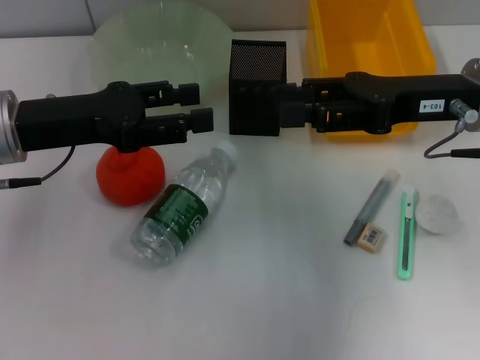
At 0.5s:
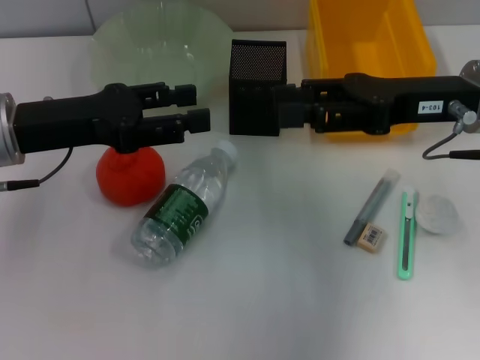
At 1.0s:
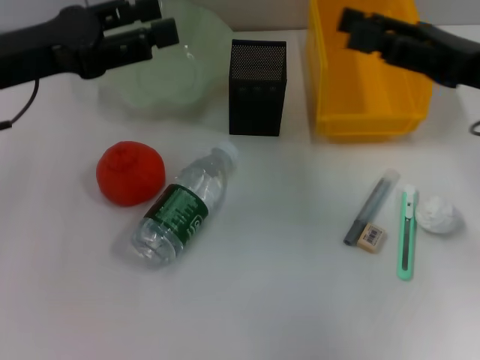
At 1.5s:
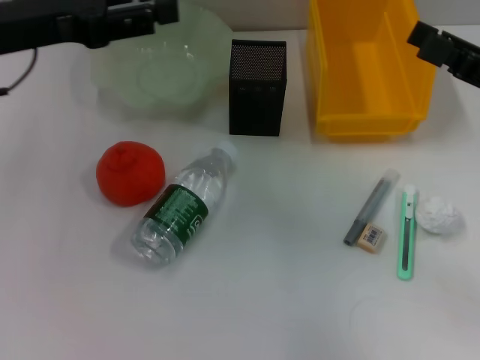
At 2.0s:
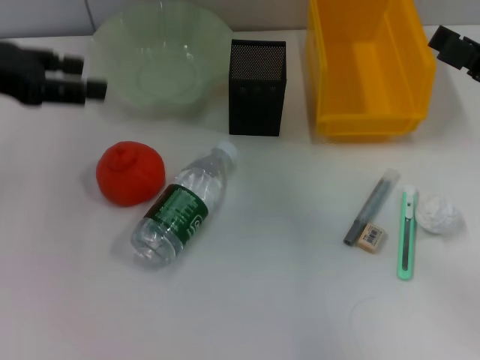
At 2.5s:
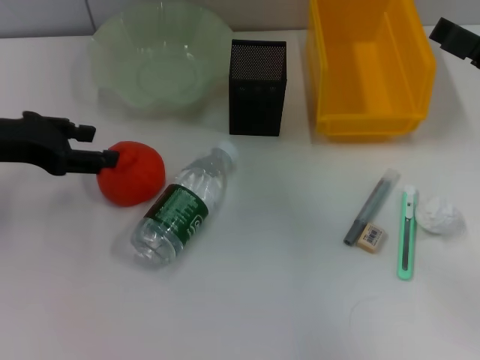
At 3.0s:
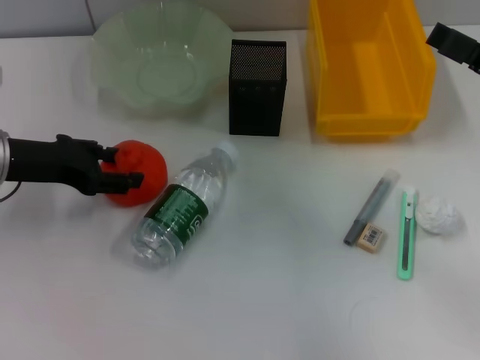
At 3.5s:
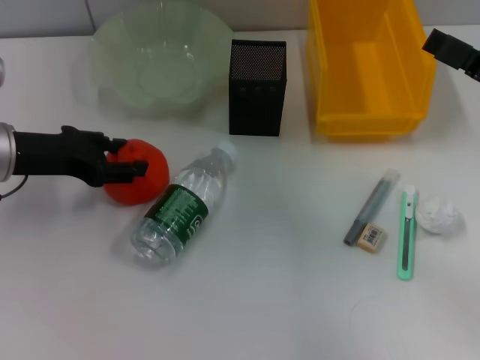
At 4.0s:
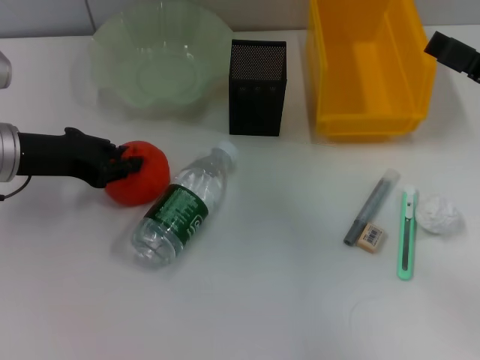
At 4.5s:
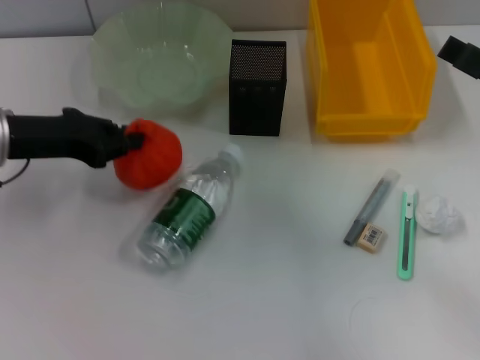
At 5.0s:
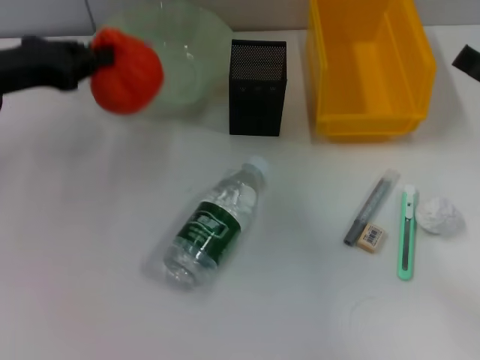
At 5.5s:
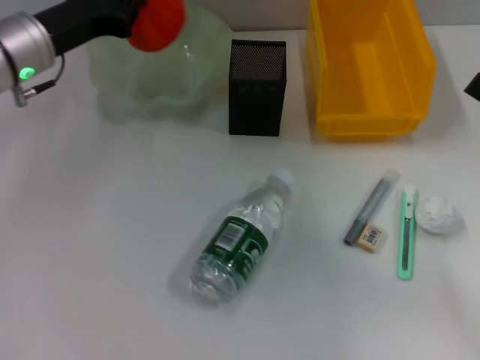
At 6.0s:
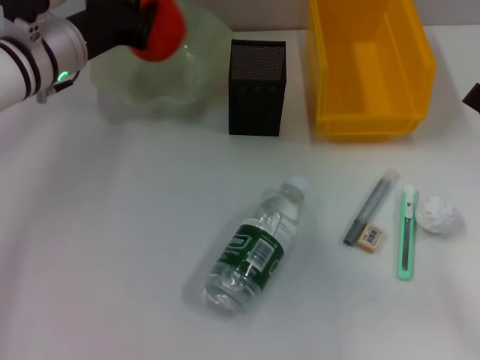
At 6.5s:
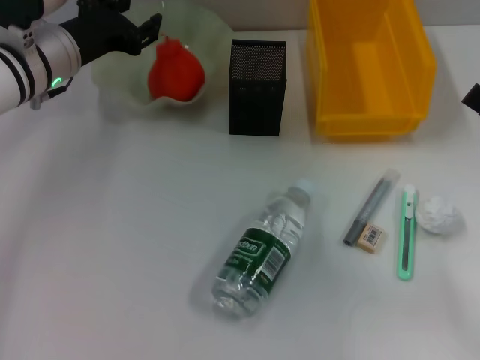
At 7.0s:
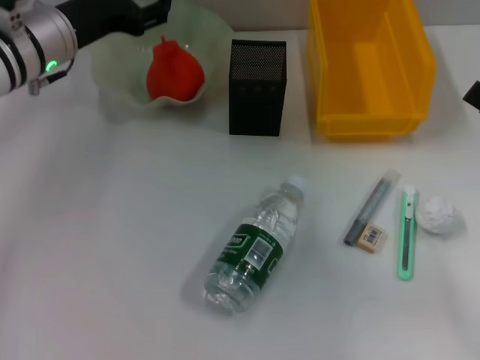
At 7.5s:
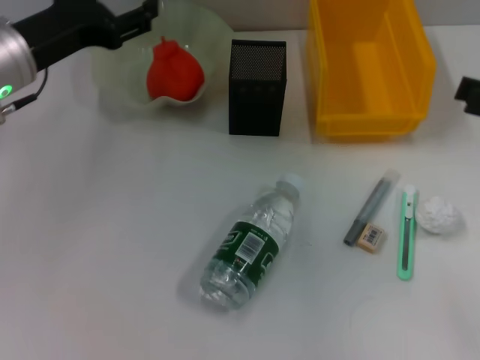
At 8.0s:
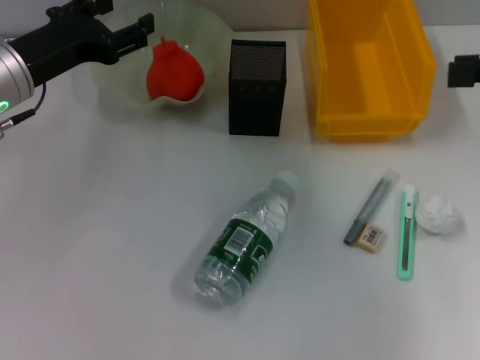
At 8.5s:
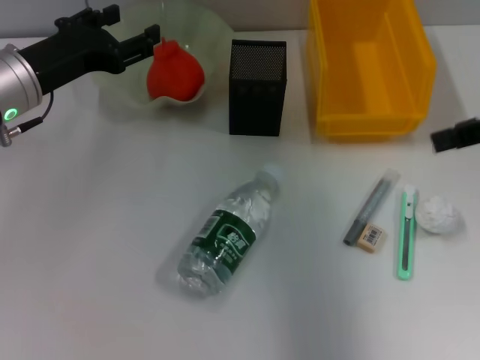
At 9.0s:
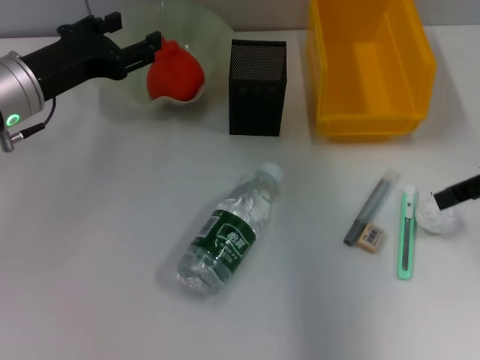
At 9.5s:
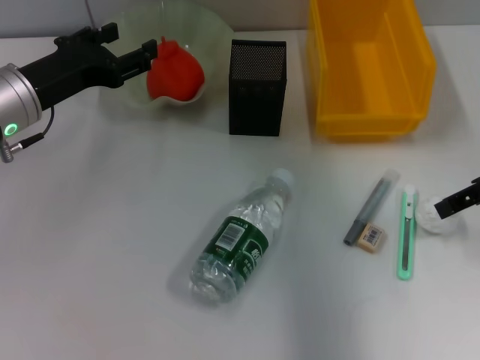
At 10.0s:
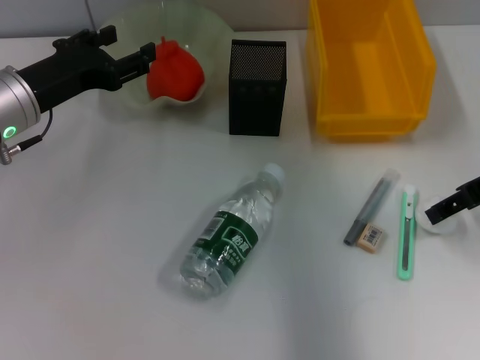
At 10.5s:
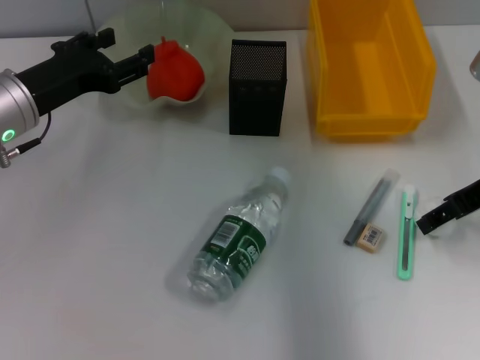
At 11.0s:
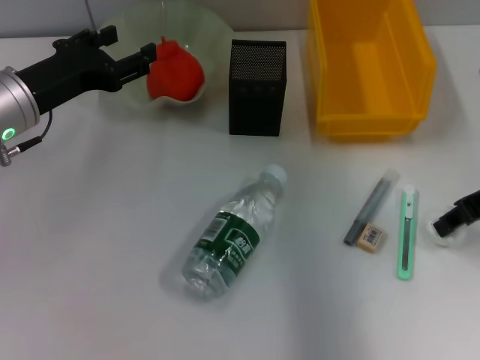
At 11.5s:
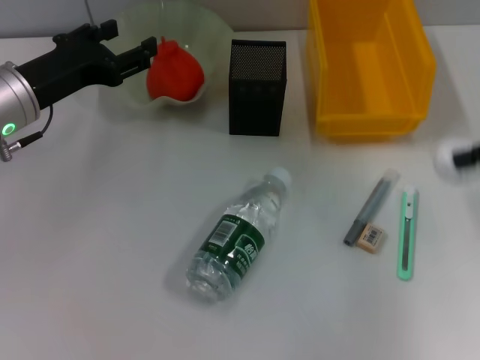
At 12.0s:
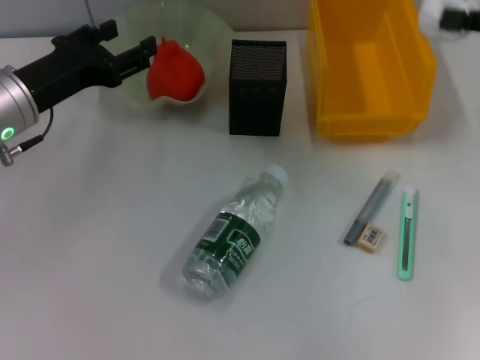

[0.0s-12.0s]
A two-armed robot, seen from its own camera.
Step, 0.0s to 3.5s: Grab the orange with the left hand.
Step, 4.0s to 6.5s: Place the orange into the fruit bowl with the left hand.
Step, 7.0s to 10.5s: Grab the paper ball with the right hand.
0.0s to 2.0s: The left gripper is displaced upward and to the left by about 10 cm, while the right gripper moves to the right and backward, some 10 cm.
2.0s to 4.0s: The left gripper is displaced downward by roughly 10 cm, and closes its fingers.
4.0s to 6.0s: The left gripper moves forward and to the right, some 10 cm, and closes; the right gripper moves backward, roughly 5 cm.
6.0s to 8.0s: The right gripper goes some 15 cm upward and forward. Meanwhile the left gripper travels backward by about 5 cm, and opens its fingers.
8.0s to 10.0s: The right gripper heads downward, covering roughly 10 cm.
10.0s to 12.0s: The right gripper travels to the right by some 5 cm, and closes its fingers.

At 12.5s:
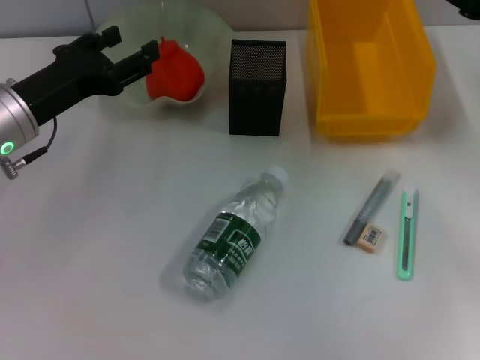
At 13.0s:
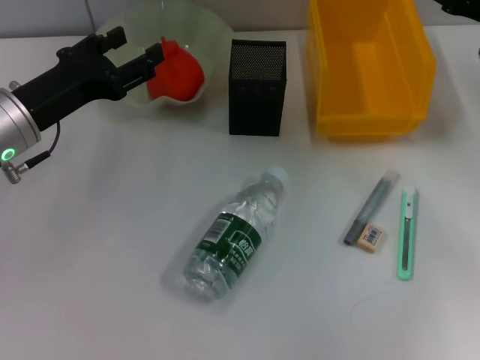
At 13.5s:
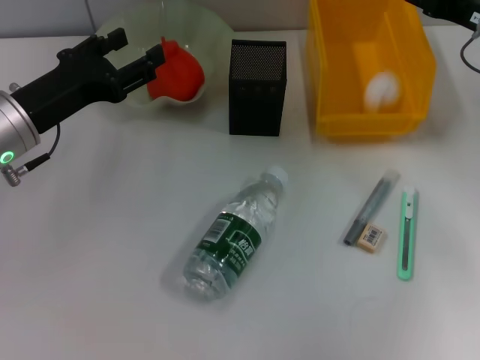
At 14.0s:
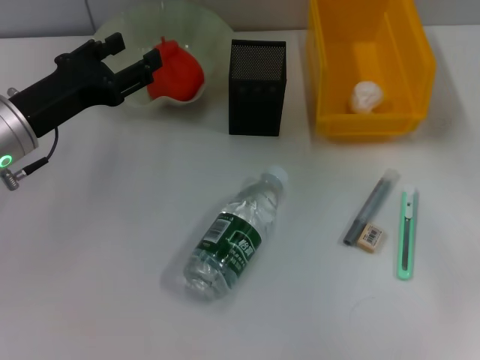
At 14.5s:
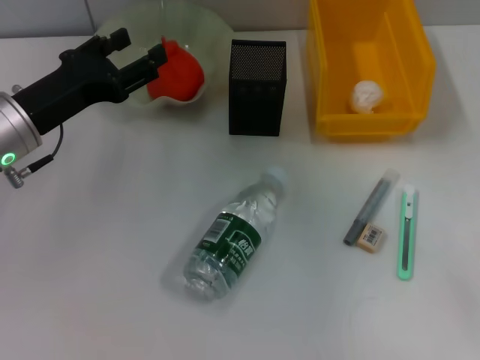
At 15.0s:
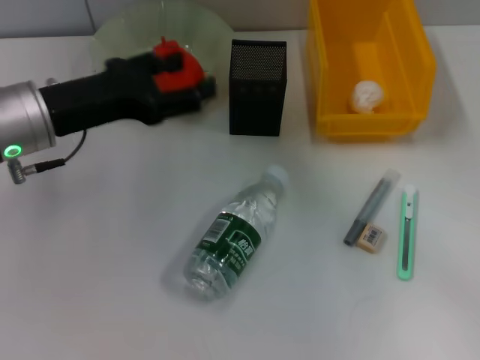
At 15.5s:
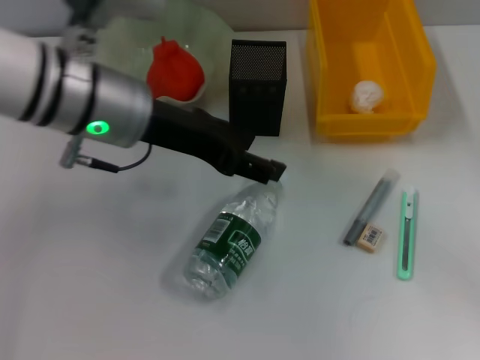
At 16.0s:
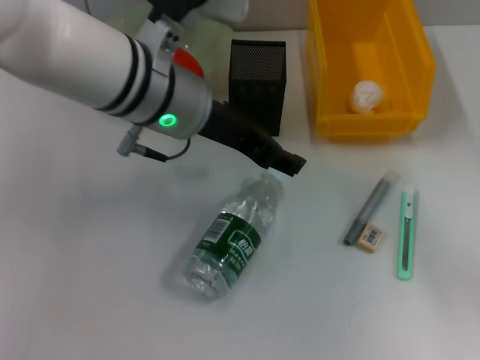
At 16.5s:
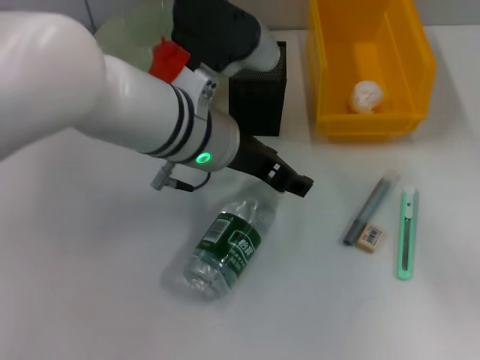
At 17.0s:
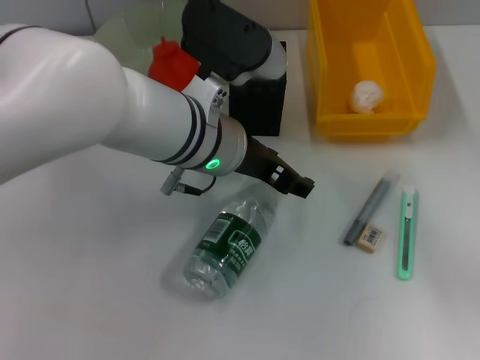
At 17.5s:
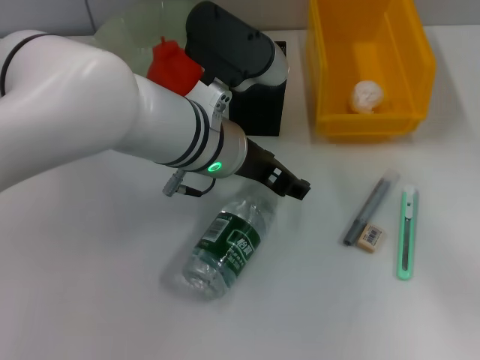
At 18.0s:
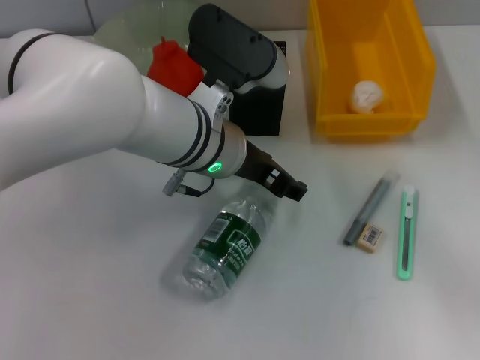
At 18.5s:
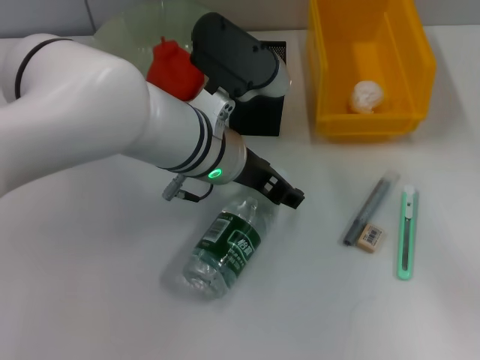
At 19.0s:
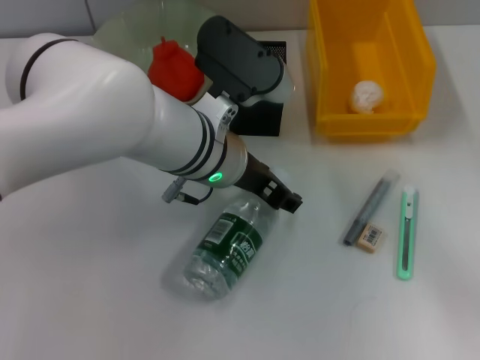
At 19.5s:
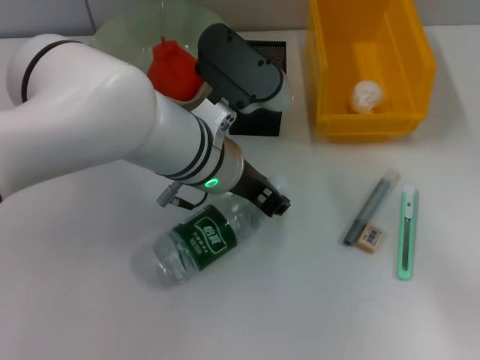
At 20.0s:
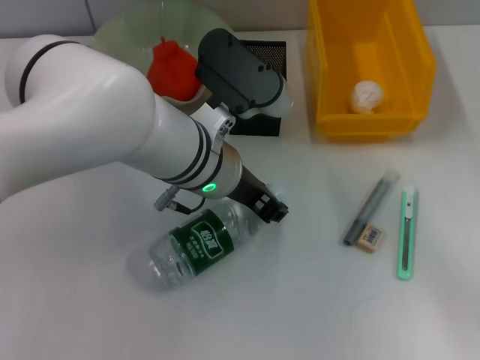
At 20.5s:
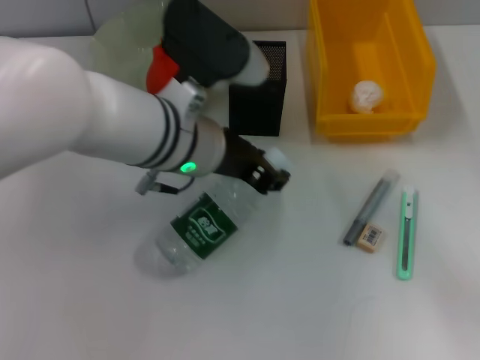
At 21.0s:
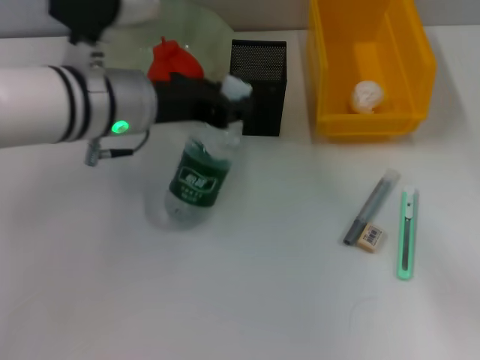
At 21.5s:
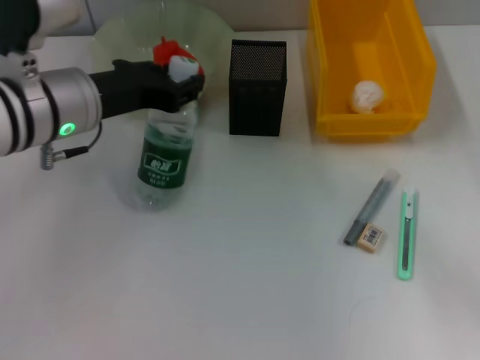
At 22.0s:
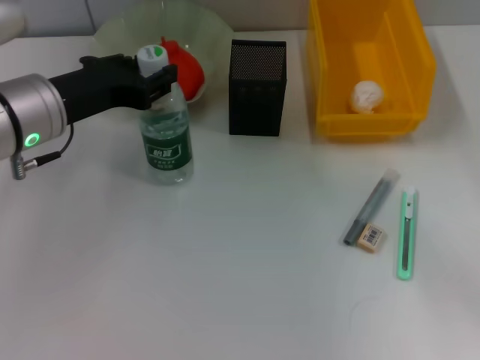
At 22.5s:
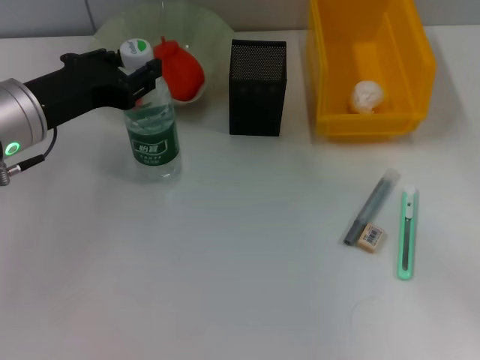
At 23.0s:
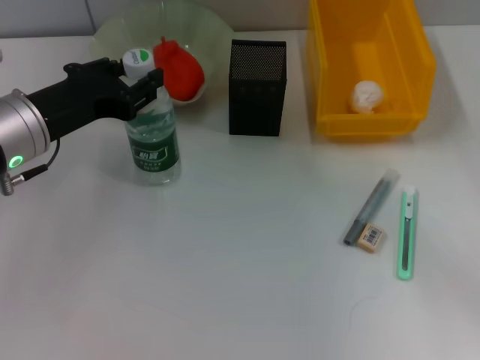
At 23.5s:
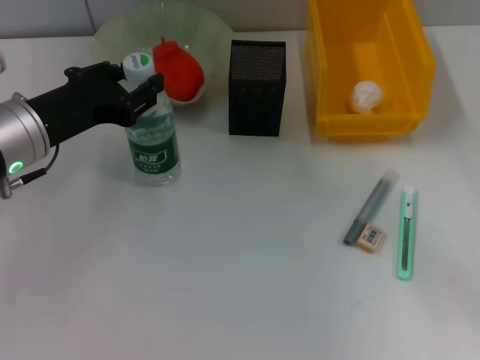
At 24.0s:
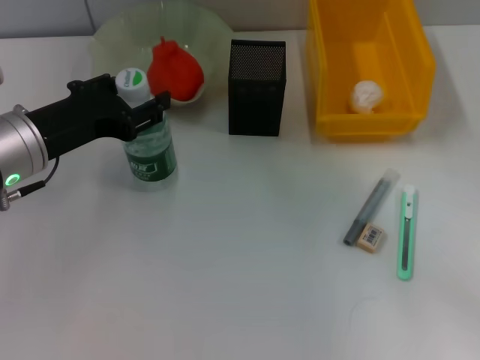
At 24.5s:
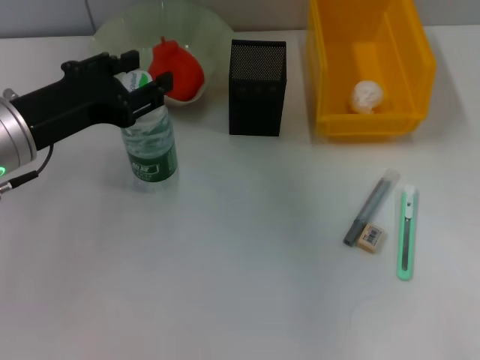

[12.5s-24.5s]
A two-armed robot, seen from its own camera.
Step, 14.0s to 19.5s: Grab the water bottle with the left hand.
Step, 20.0s to 24.0s: Place the water bottle on the table with the left hand.
12.5s to 14.5s: The right gripper heads backward and upward, covering roughly 10 cm, and opens.
14.5s to 16.5s: The left gripper heads to the right, covering roughly 20 cm. The right gripper travels downward, backward and to the right by roughly 15 cm.
16.5s to 18.5s: The grippers make only small movements.
18.5s to 20.5s: The left gripper closes up.
20.5s to 22.5s: The left gripper shifts about 15 cm to the left.
22.5s to 24.5s: The right gripper is displaced upward by some 10 cm.

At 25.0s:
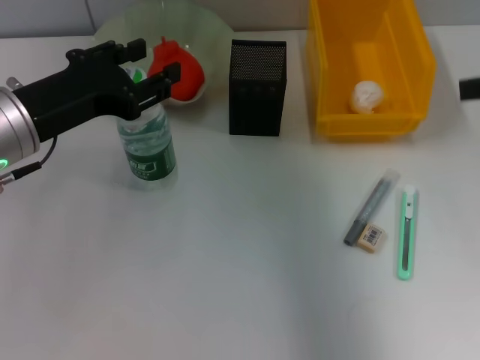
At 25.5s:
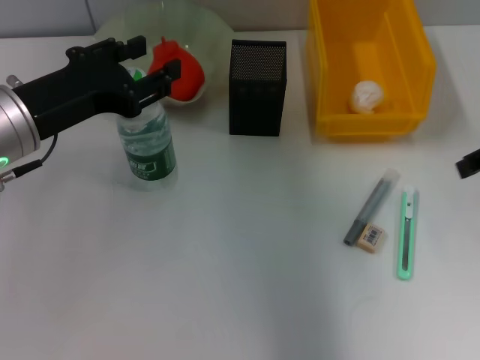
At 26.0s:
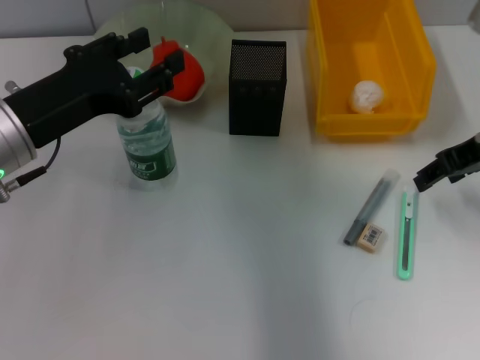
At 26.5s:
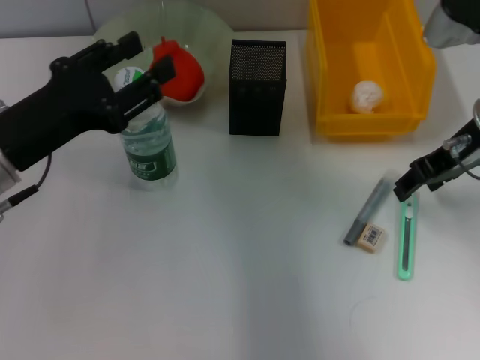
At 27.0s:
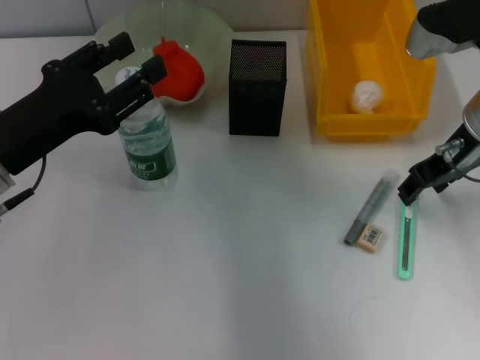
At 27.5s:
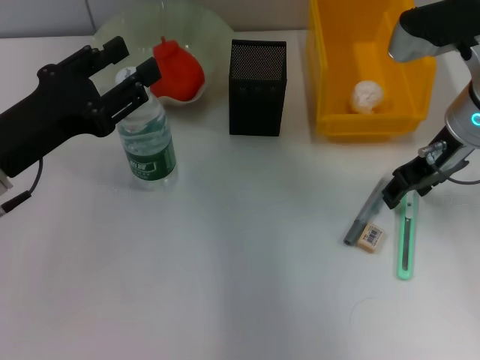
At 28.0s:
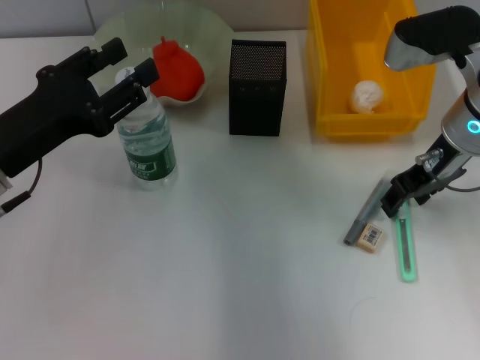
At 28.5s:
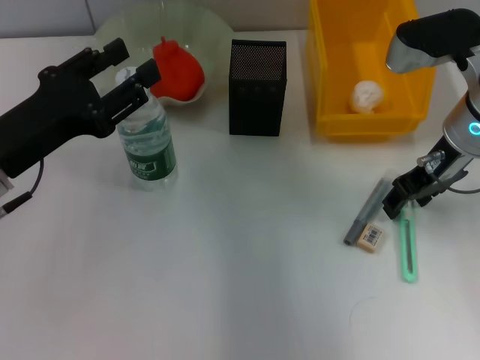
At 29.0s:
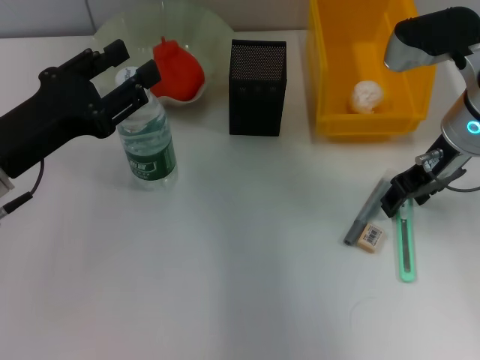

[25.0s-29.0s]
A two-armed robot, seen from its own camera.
25.0s to 27.0s: The right gripper heads downward, forward and to the left, covering about 15 cm.
27.0s to 29.0s: The grippers move only a little.
